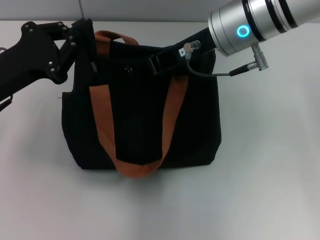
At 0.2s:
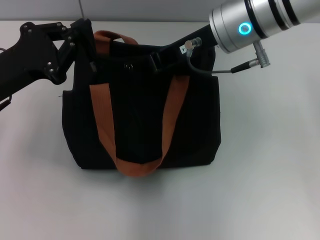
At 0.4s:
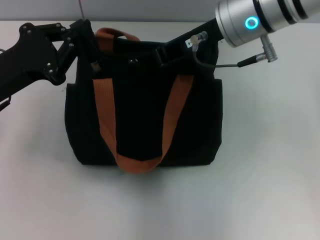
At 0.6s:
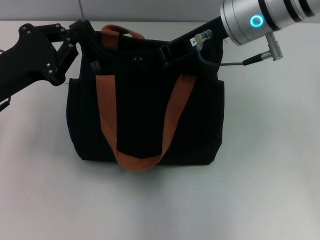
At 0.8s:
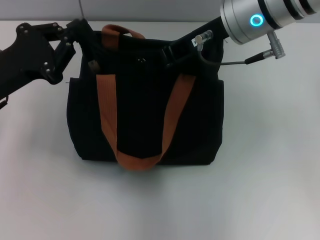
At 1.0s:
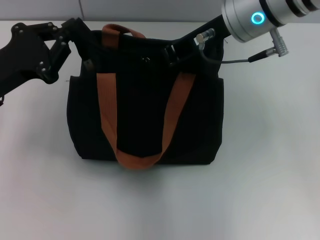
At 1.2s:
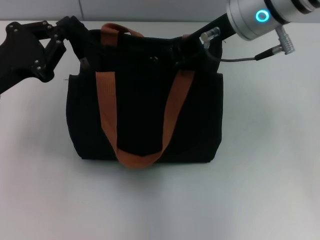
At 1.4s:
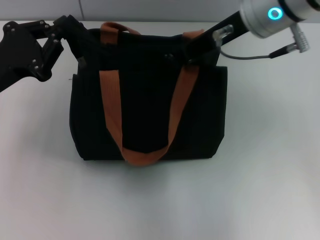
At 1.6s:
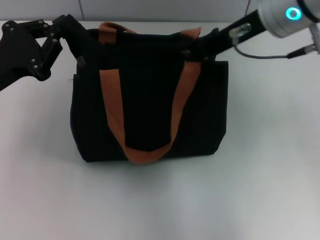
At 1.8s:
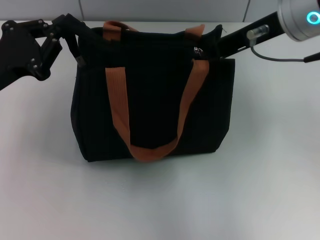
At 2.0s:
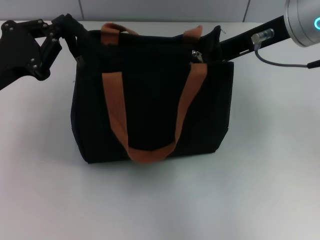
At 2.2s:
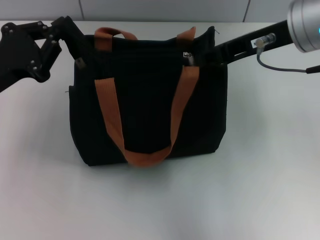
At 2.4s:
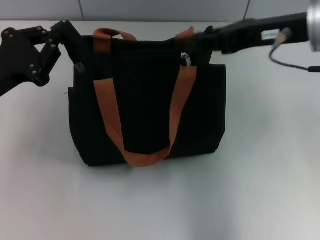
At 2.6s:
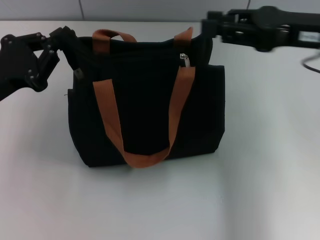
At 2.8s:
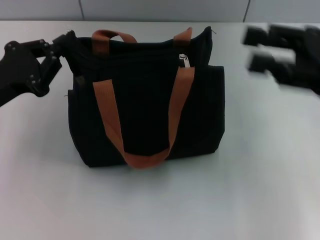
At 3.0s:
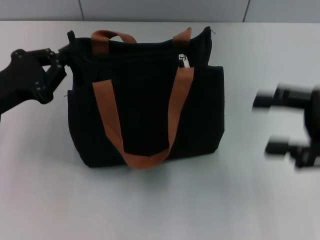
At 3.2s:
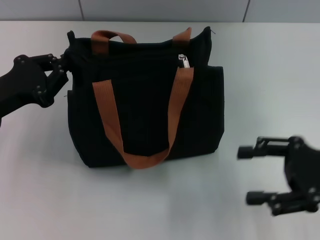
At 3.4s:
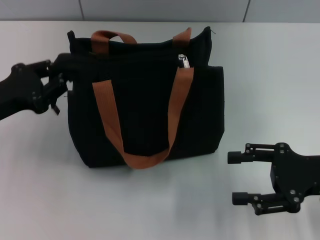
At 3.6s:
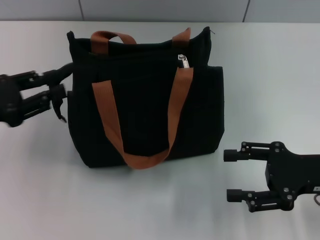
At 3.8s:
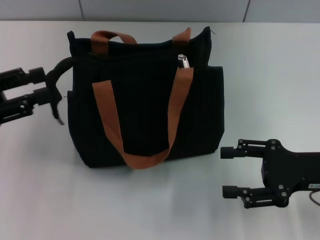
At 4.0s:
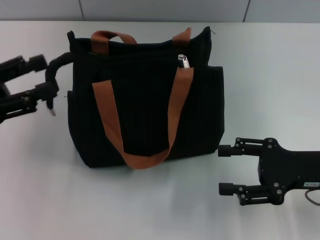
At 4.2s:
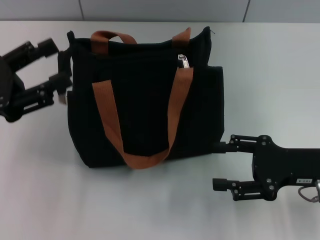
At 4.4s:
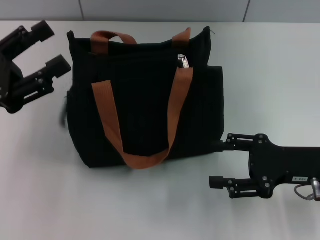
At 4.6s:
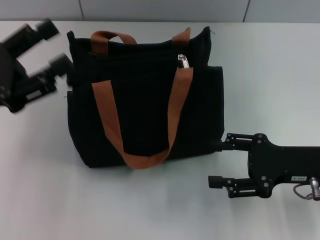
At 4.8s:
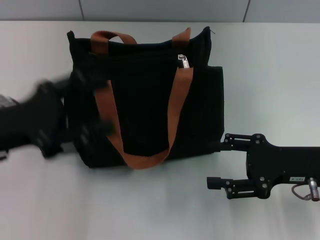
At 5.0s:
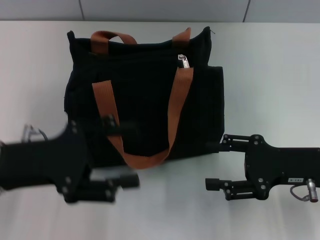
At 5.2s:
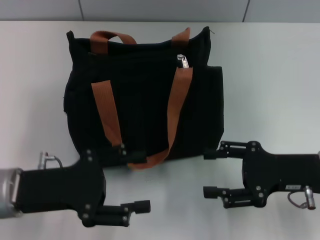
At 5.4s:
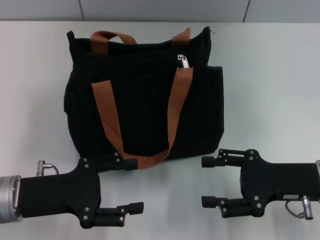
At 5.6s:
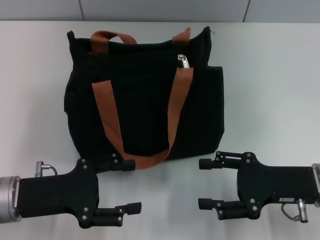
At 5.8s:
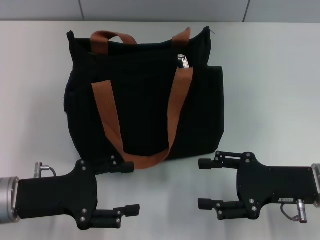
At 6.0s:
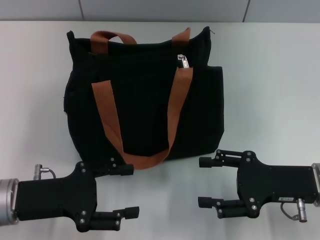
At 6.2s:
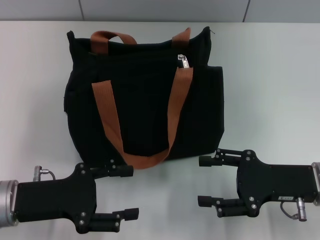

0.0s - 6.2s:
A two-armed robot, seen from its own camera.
Step, 0.0s - 2.2s: Pull up the zipper with your right hand.
Step, 2.4s - 4.2s: Grab the zipper with your left hand.
0.0s - 1.6s: The right gripper moves some 5 cm.
1.6s - 3.2s: The right gripper goes roughly 25 cm downward, to the right and backward, and opens up.
3.2s - 4.6s: The left gripper opens.
4.6s - 6.2s: The left gripper heads downward, covering roughly 10 cm.
